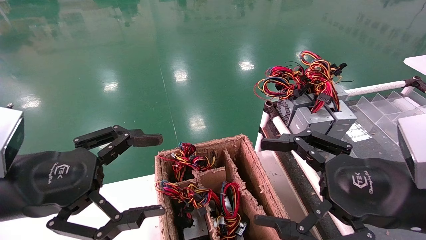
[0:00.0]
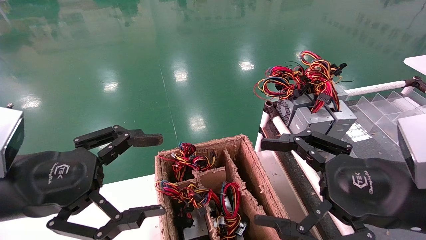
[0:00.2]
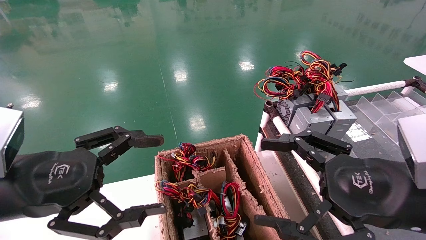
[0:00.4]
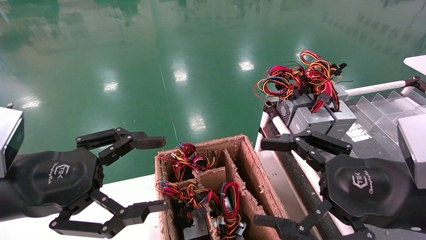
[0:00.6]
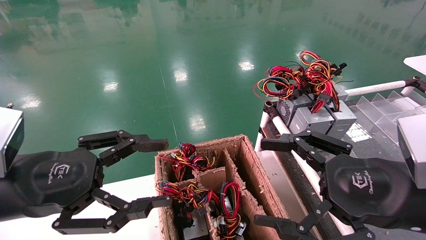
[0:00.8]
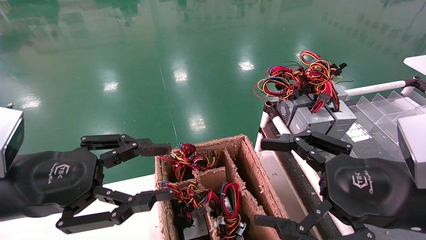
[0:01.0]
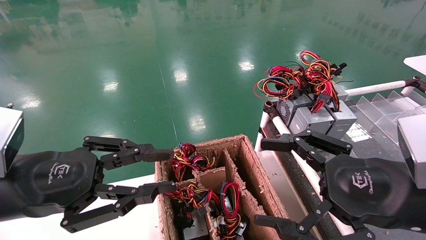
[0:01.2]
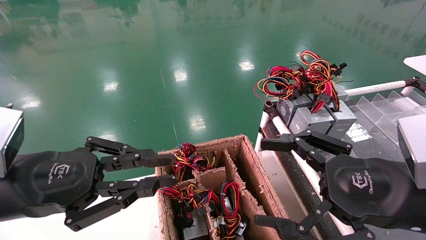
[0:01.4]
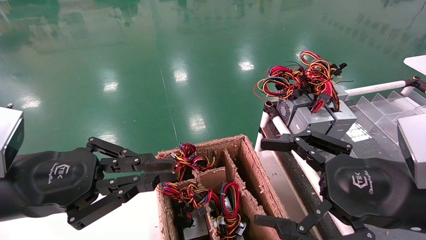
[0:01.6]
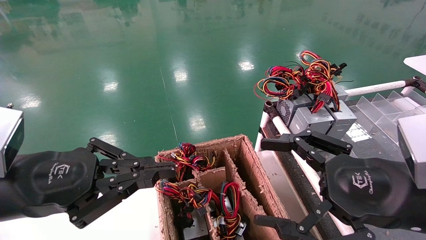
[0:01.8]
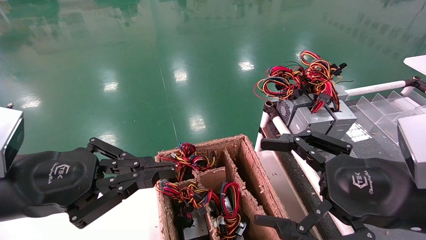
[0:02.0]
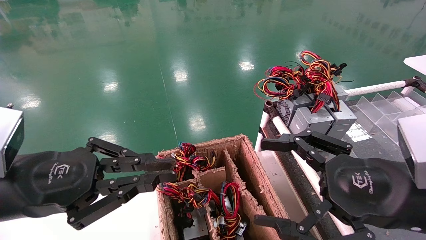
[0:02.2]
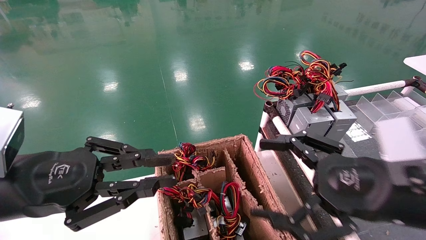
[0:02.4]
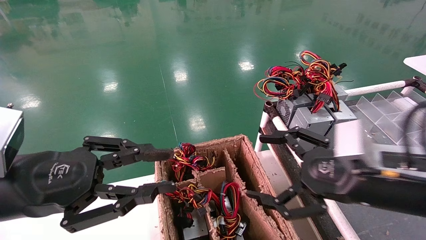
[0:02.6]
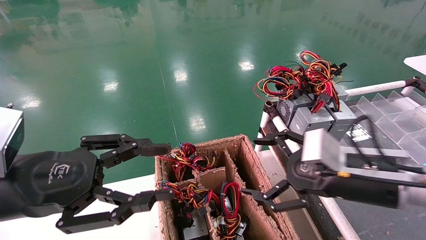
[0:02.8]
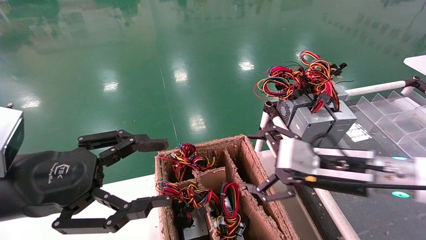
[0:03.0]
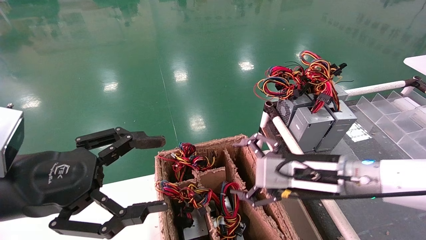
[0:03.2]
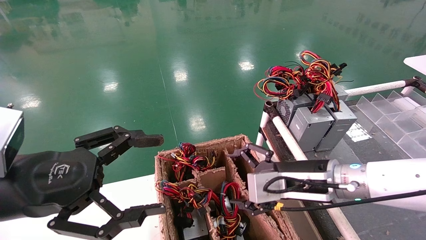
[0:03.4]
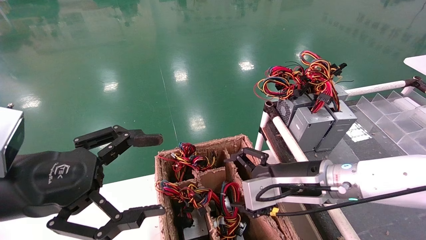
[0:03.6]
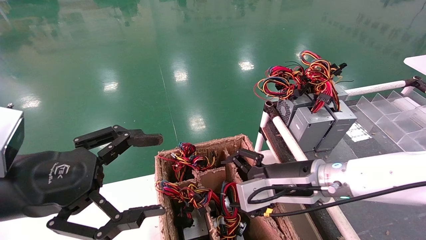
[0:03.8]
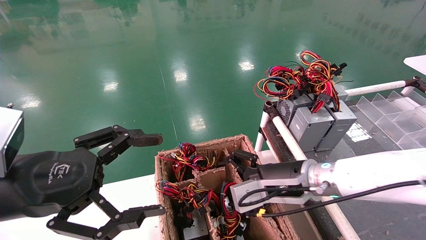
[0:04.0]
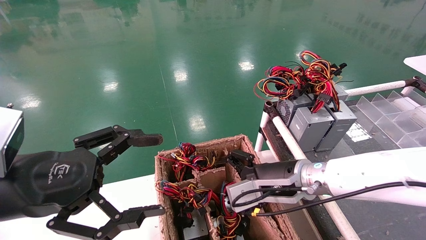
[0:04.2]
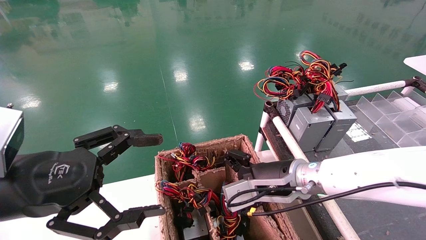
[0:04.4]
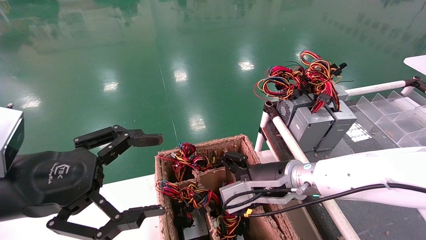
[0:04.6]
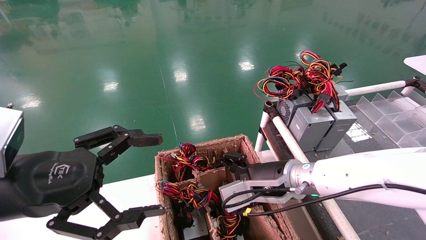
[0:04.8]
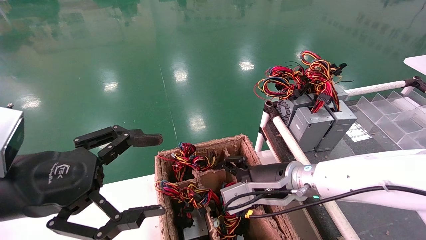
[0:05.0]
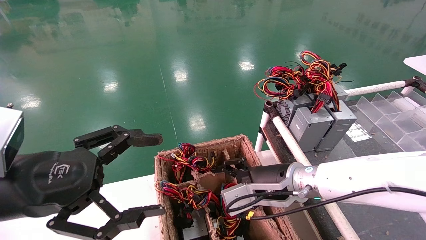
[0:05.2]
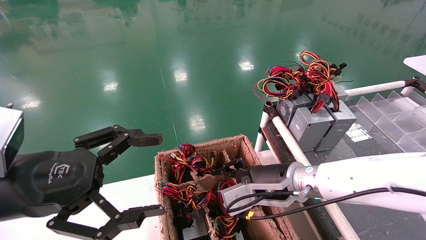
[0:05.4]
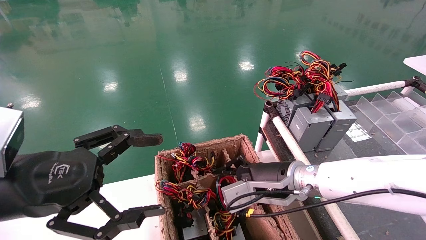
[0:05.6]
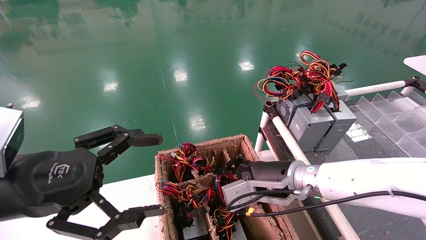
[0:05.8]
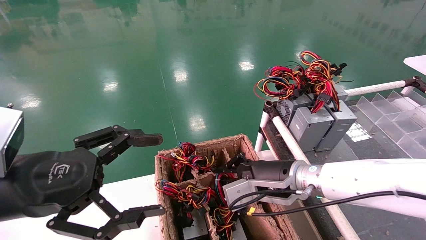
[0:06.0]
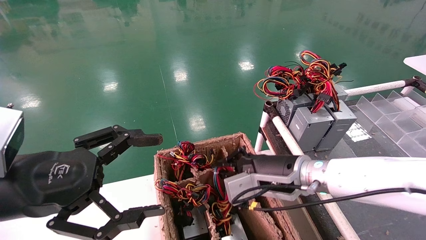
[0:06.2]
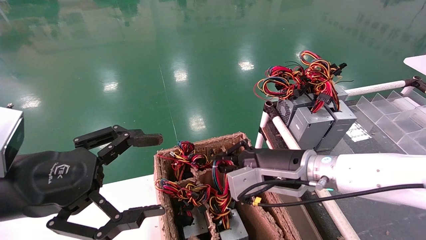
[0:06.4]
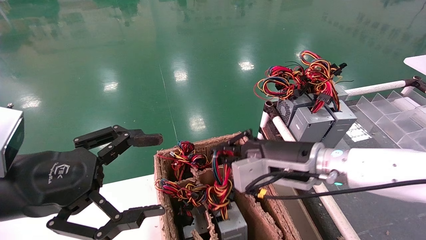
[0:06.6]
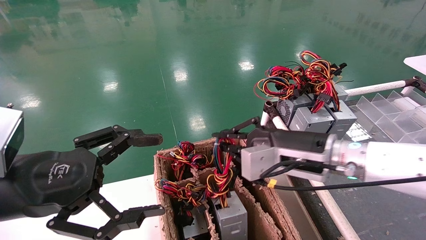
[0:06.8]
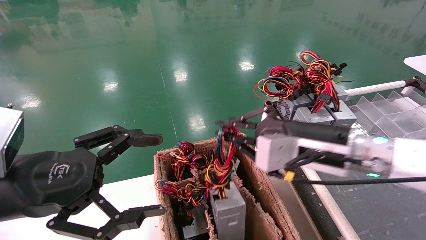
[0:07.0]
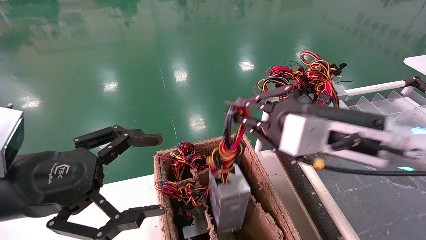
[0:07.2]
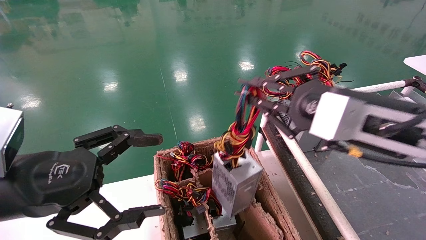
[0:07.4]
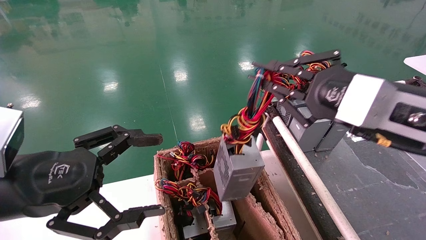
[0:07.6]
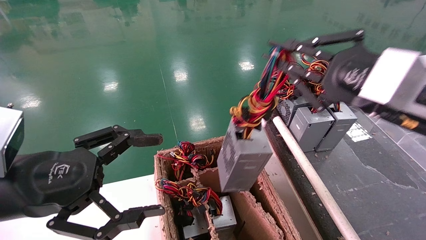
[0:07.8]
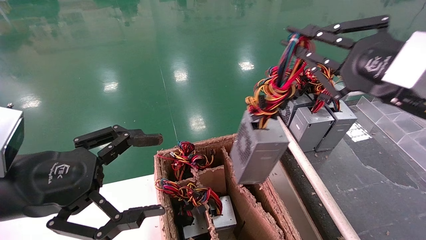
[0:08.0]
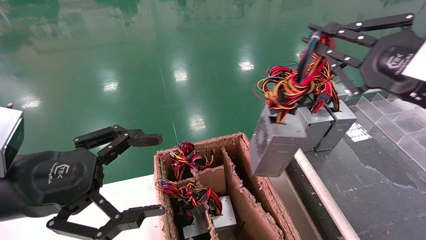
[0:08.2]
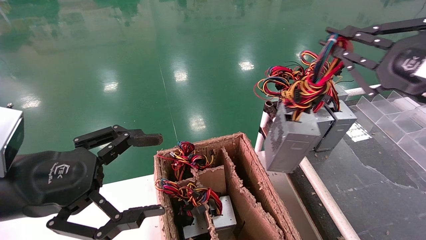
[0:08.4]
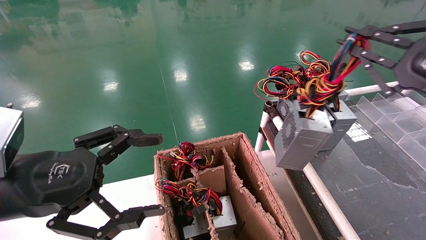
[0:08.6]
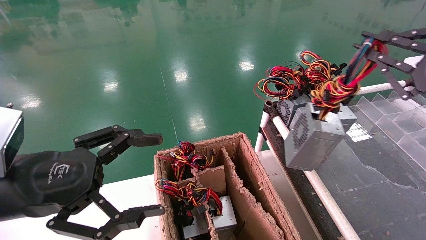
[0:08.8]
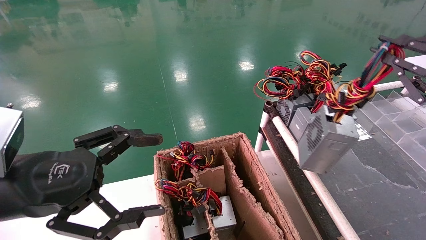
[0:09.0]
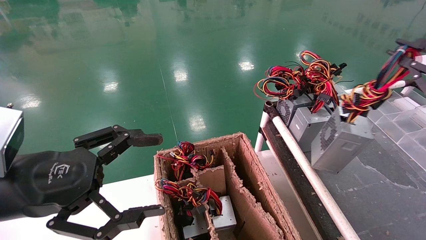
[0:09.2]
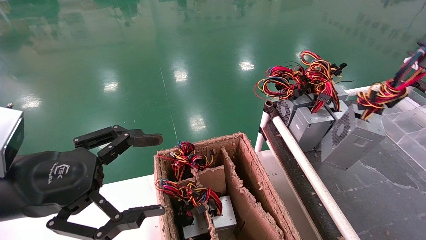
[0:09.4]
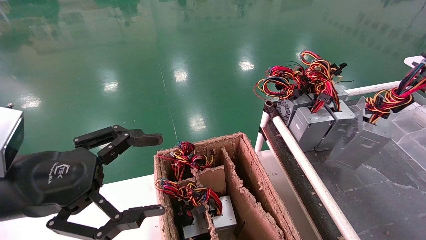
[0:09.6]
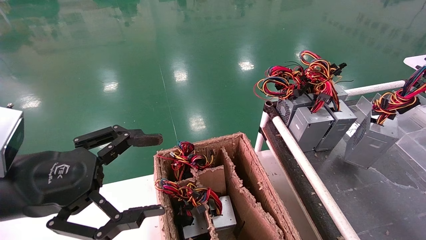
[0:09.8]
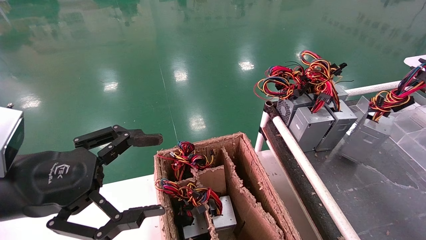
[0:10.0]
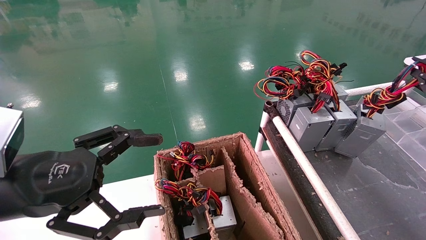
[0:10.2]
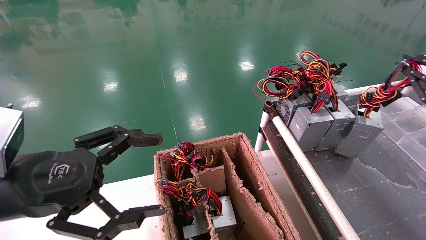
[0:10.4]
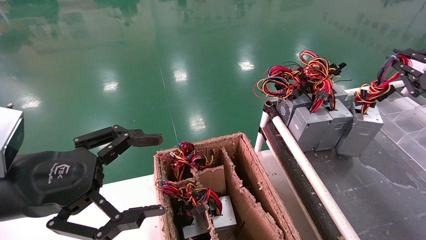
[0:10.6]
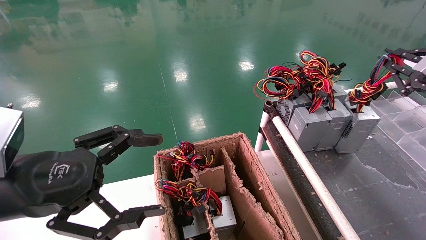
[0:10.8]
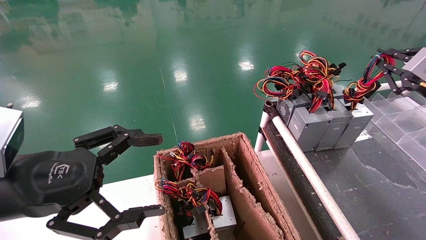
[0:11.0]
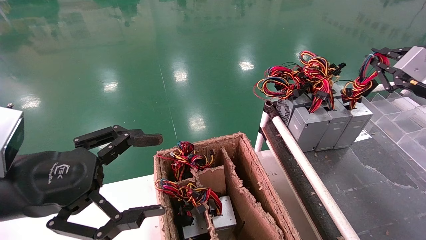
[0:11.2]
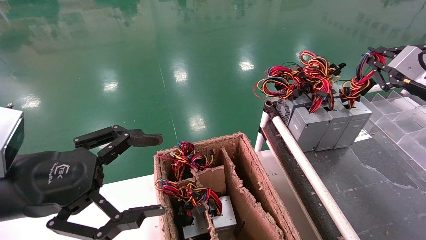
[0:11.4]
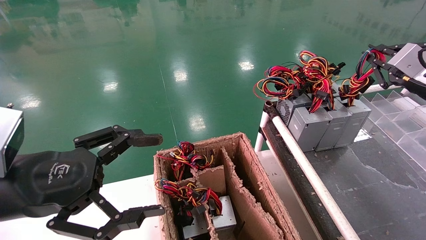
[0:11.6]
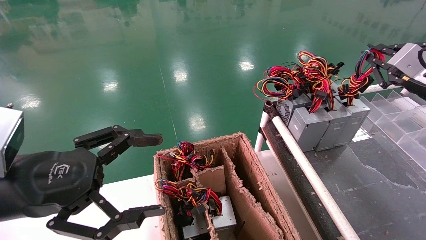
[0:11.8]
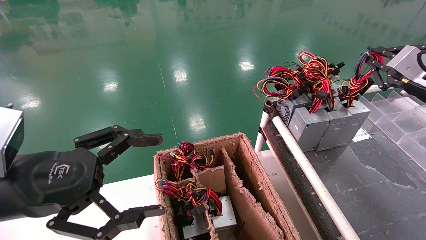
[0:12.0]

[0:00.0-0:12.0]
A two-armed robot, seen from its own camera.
Step, 0:01.8 to 0:06.2: Grab and lift the power supply from the large box.
0:00.0 to 0:01.6: The left gripper closes.
0:01.6 to 0:03.0: The right gripper shifts about 10 cm forward; the left gripper opens.
0:03.0 to 0:04.4: The right gripper heads to the left and forward, covering about 10 cm. Meanwhile the left gripper opens its fingers.
0:04.4 to 0:06.0: The right gripper closes its fingers.
0:06.0 to 0:07.6: The right gripper moves upward, to the right and backward, about 20 cm.
0:07.6 to 0:09.0: The right gripper is displaced to the right by approximately 15 cm.
0:09.0 to 0:10.4: The right gripper goes approximately 15 cm forward and to the right.
0:10.4 to 0:12.0: The right gripper goes some 5 cm forward.

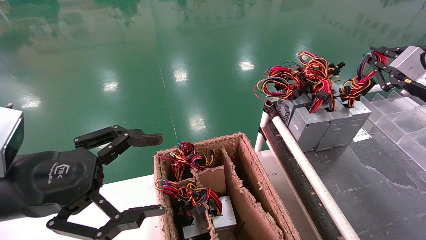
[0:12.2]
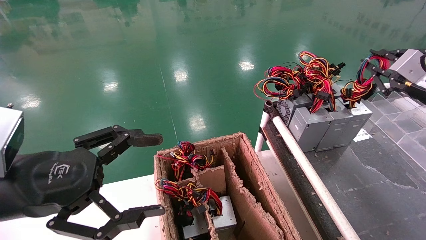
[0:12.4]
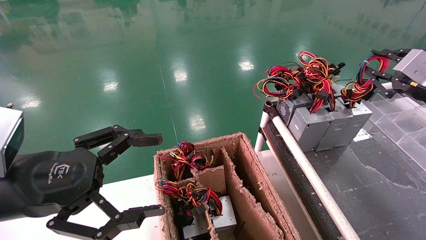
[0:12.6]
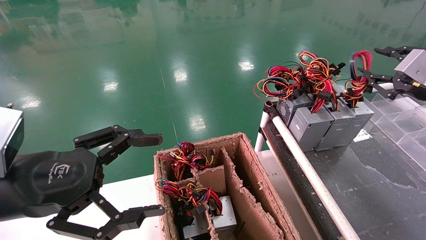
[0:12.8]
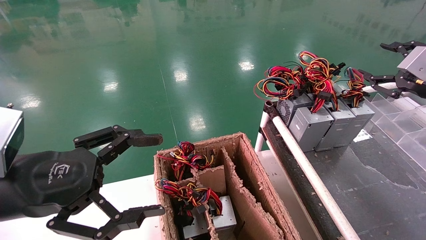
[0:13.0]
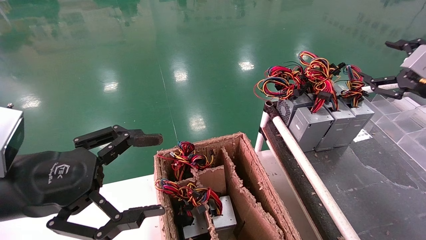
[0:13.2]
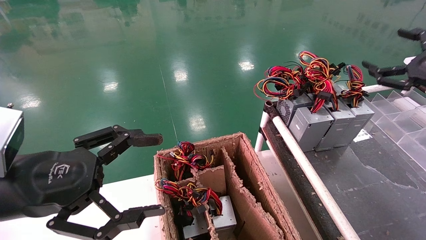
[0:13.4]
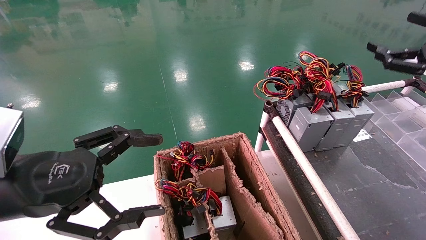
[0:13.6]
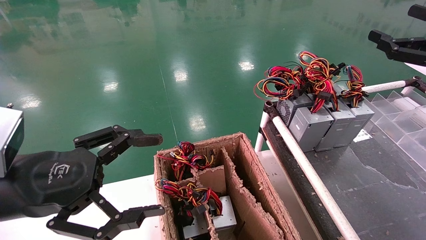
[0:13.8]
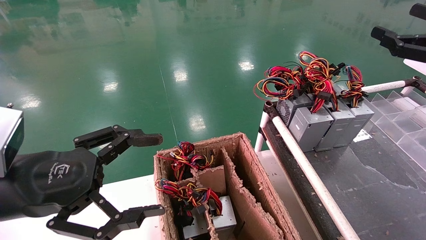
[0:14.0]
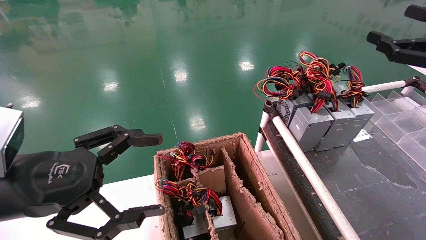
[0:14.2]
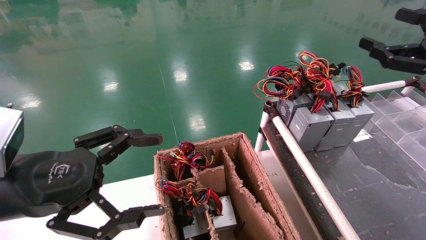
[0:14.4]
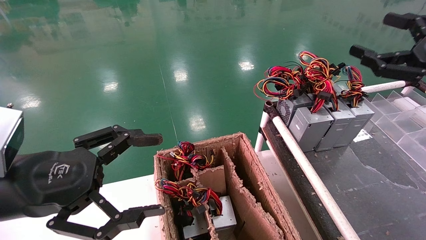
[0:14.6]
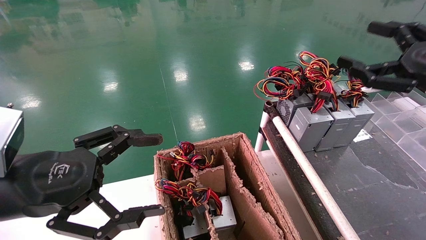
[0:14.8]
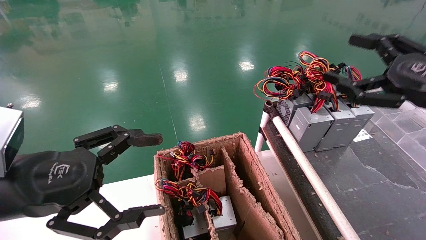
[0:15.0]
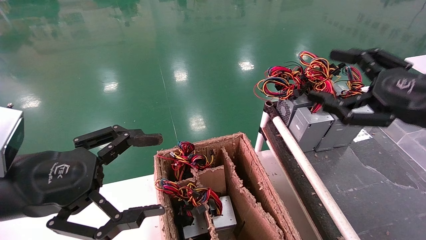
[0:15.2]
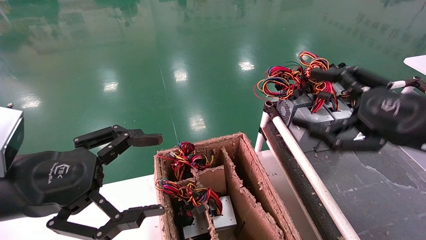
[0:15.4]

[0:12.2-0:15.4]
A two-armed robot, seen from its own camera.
0:12.2 to 0:13.8: The right gripper is displaced backward by roughly 5 cm, and opens up.
0:13.8 to 0:15.4: The right gripper moves to the left, backward and downward, some 15 cm.
